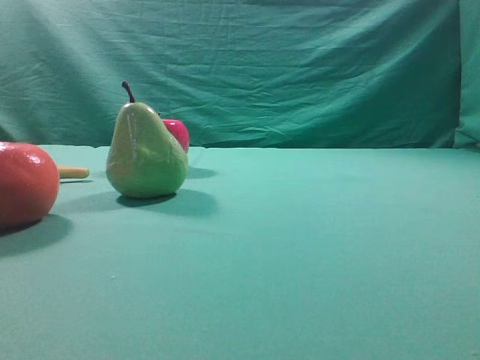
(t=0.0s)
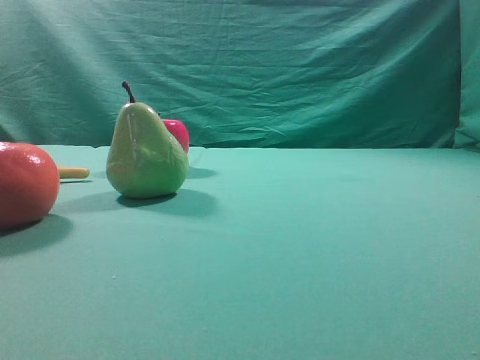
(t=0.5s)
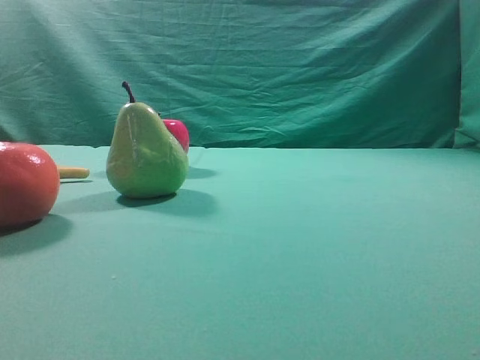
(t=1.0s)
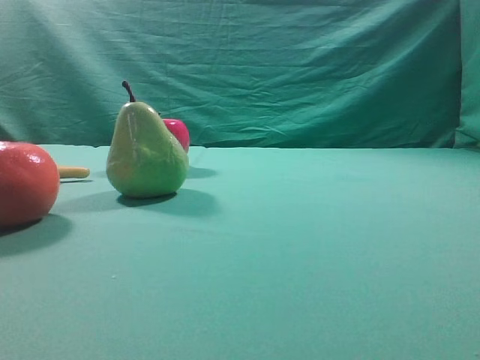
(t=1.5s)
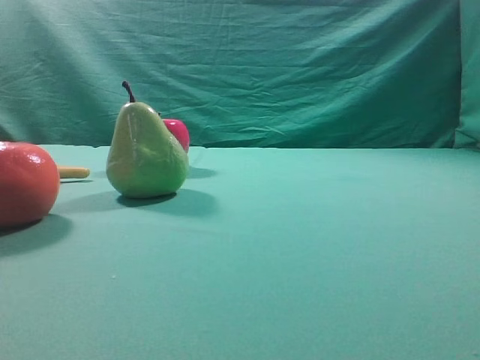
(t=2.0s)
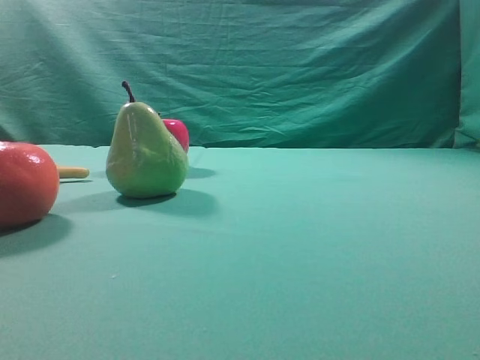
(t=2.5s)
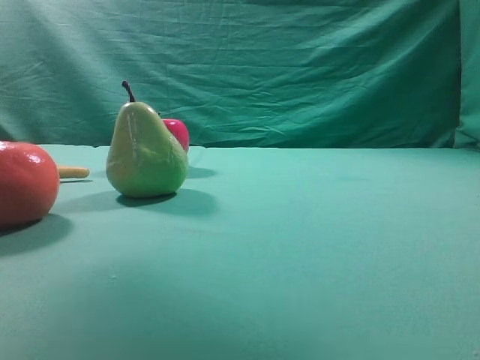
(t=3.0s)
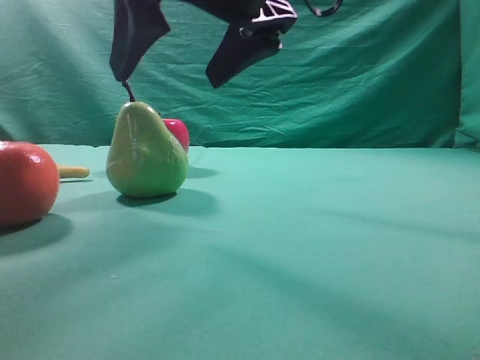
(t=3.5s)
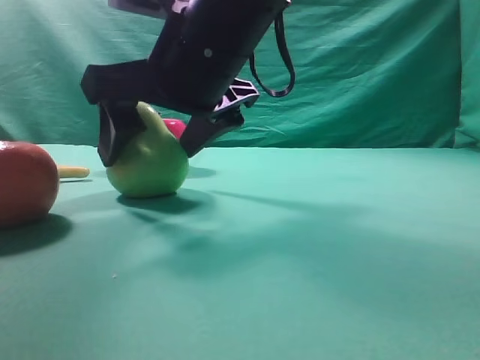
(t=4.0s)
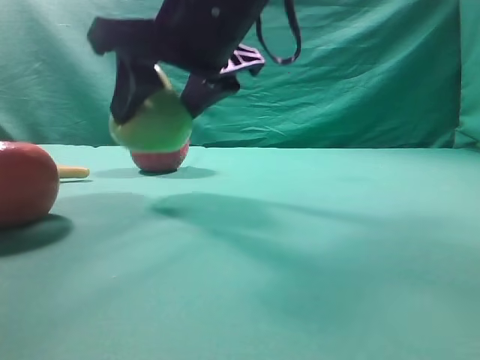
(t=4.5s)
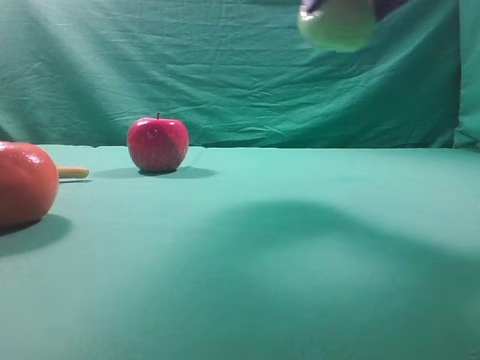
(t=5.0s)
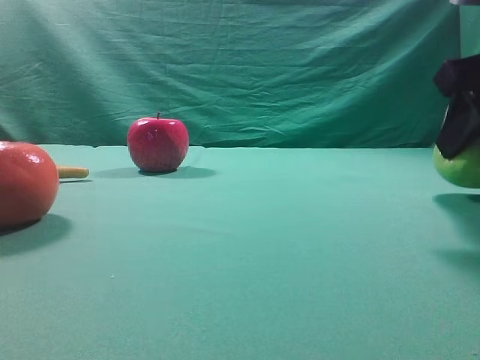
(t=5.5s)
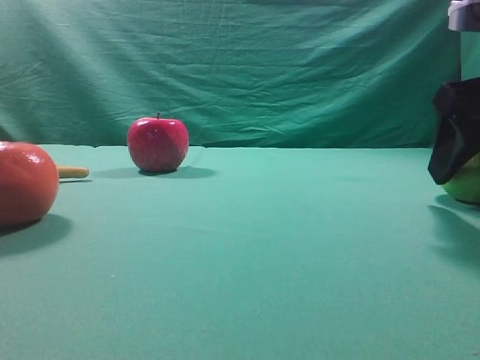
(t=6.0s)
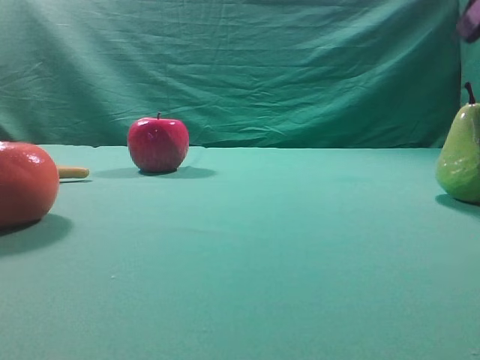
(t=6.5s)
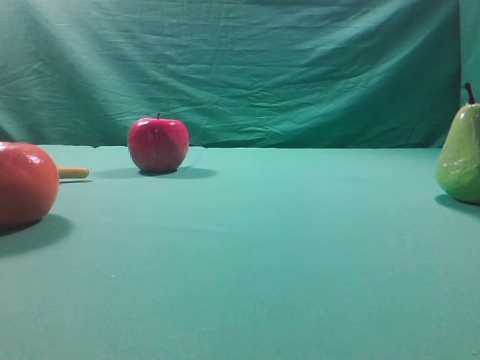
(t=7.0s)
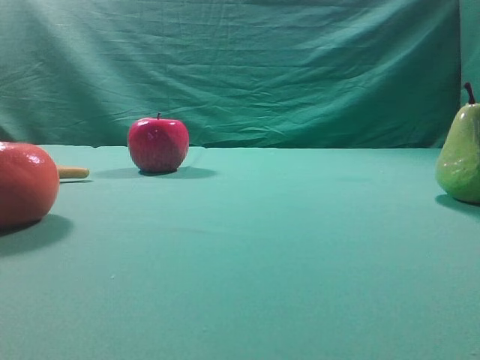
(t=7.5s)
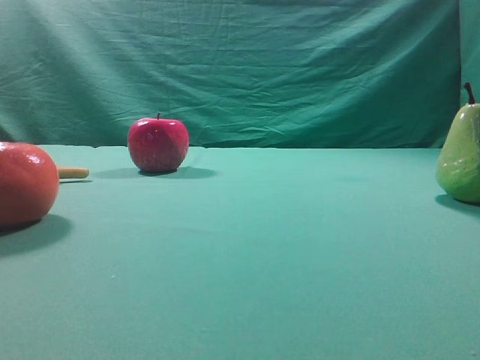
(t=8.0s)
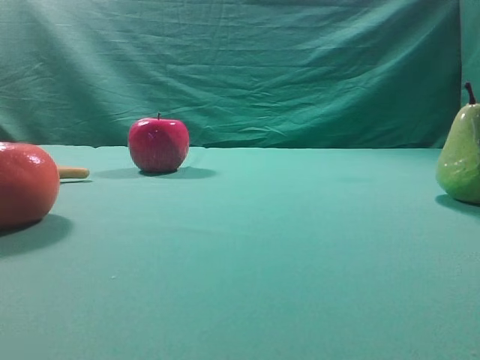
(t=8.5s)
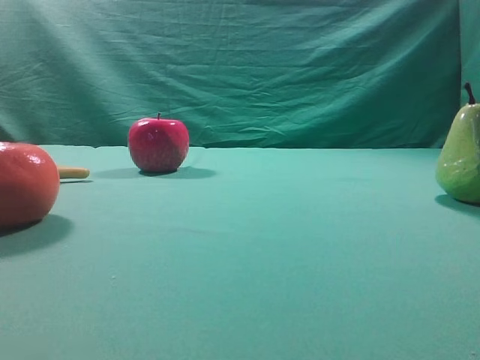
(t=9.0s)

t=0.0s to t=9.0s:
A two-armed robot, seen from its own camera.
Task of the whole recording: Grasp the pear and place it on one side of the table.
Step, t=0.0s to t=4.0s: Grasp the high-fiber fruit.
Step, t=4.5s to t=6.5s: Place it on the right side of the table.
